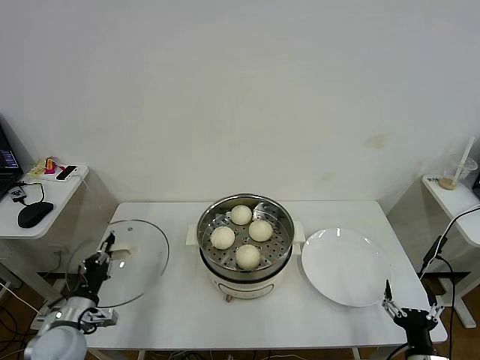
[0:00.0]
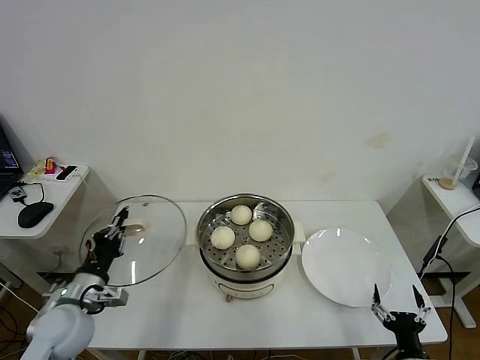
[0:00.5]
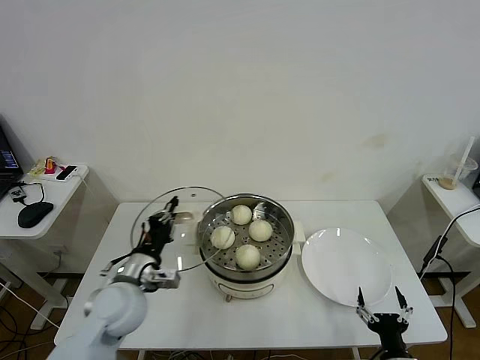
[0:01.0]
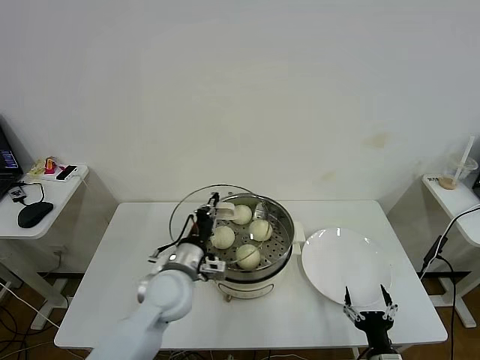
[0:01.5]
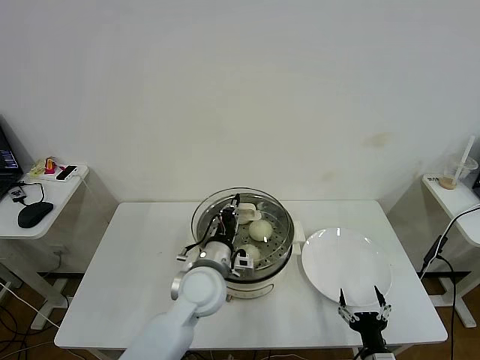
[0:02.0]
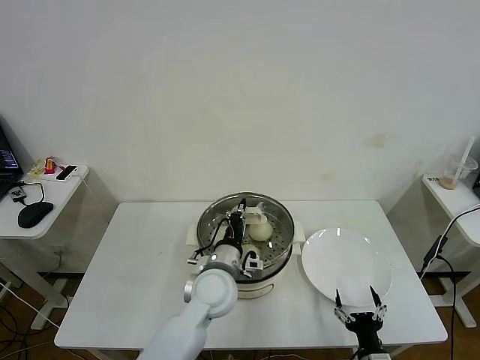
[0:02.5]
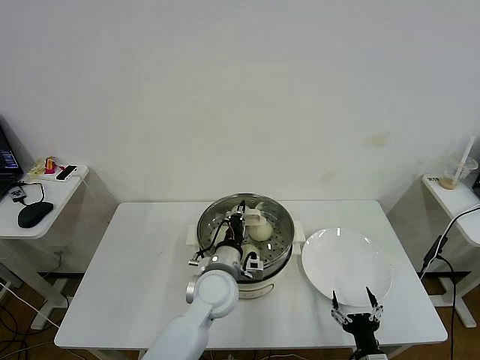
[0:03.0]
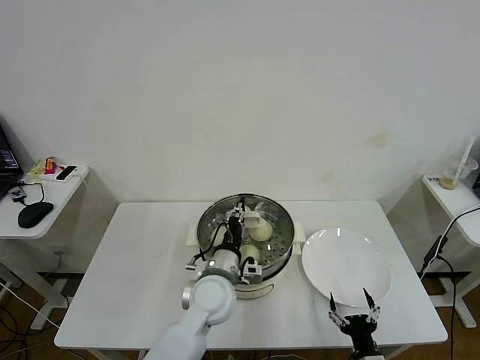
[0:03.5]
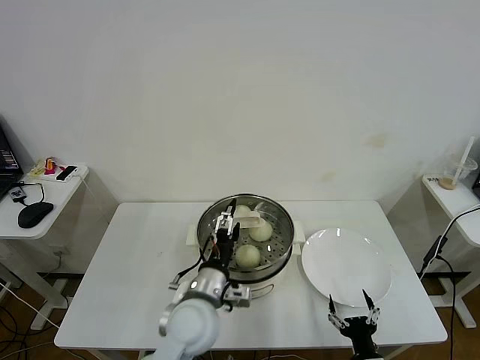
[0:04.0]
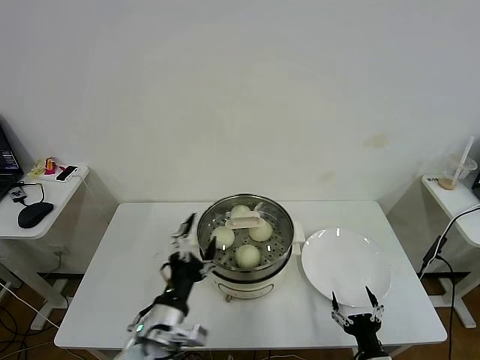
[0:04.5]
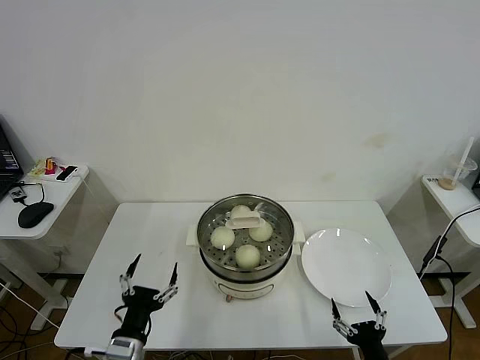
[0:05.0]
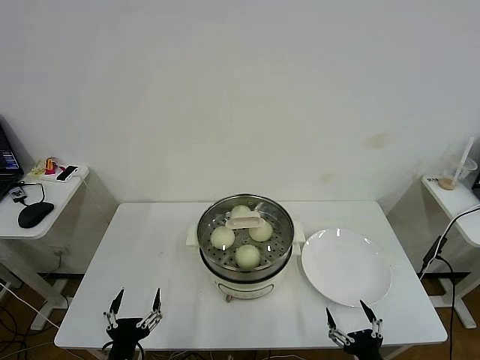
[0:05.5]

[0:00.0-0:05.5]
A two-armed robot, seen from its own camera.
Task of the whole recording: take steamed baozi put them in steamer then cover it.
Step, 0:00.0 to 0:04.0: Place the pot lid on the steamer with left gripper.
0:00.0 to 0:02.0: The left gripper moves to the right, about 30 cm. The right gripper travels to the left by some 5 cm.
0:02.0 to 0:03.5: The grippers make only small movements.
0:03.5 to 0:05.5: The right gripper travels upward by approximately 5 cm, while the left gripper travels backward and to the left by roughly 30 cm, and opens.
